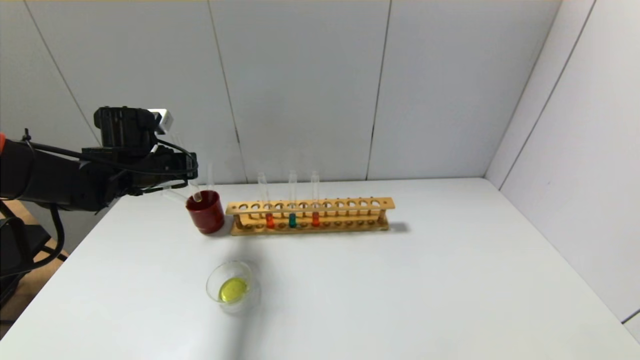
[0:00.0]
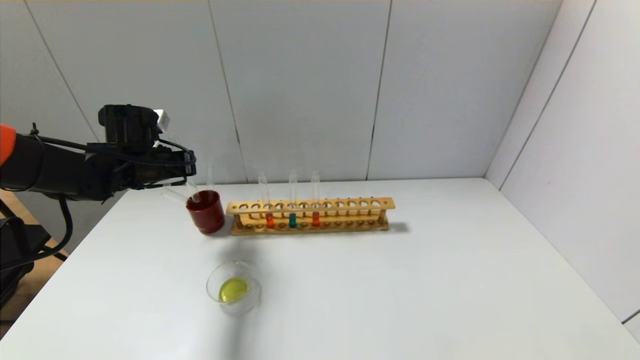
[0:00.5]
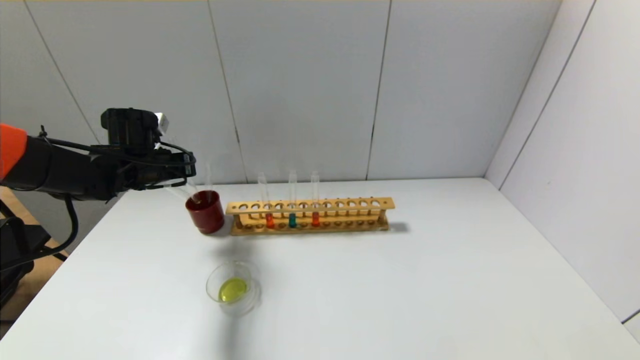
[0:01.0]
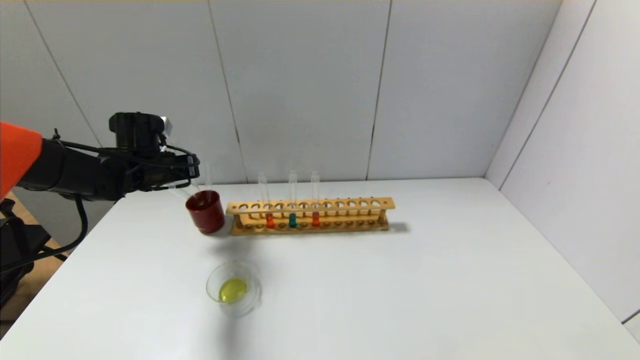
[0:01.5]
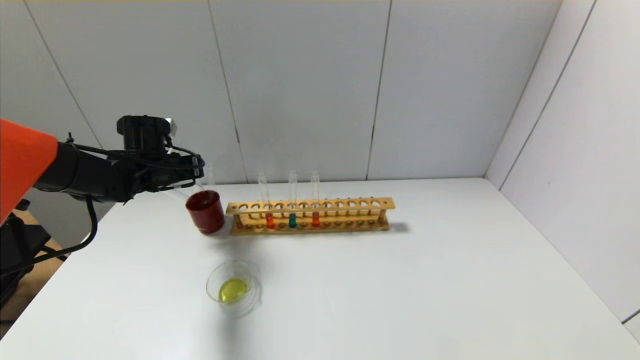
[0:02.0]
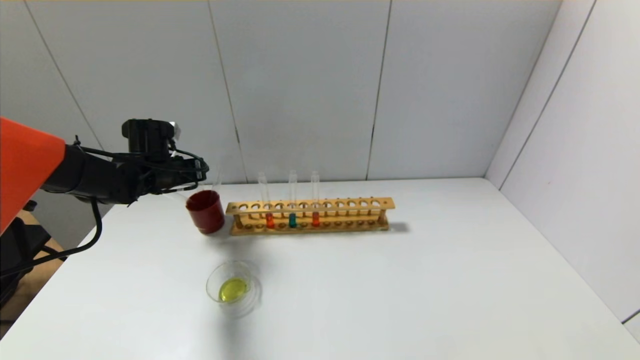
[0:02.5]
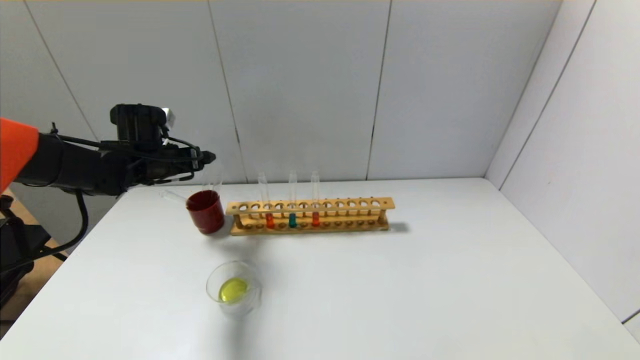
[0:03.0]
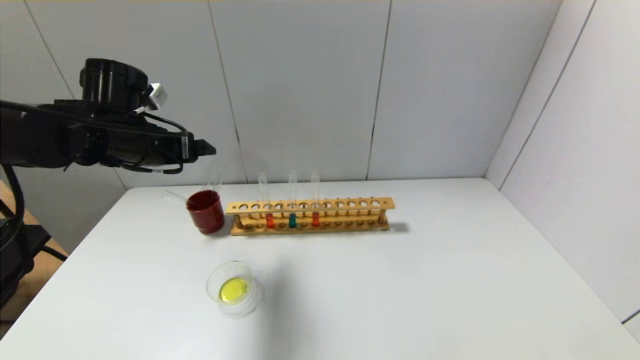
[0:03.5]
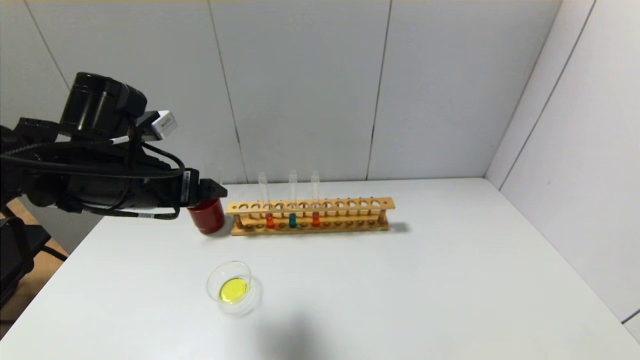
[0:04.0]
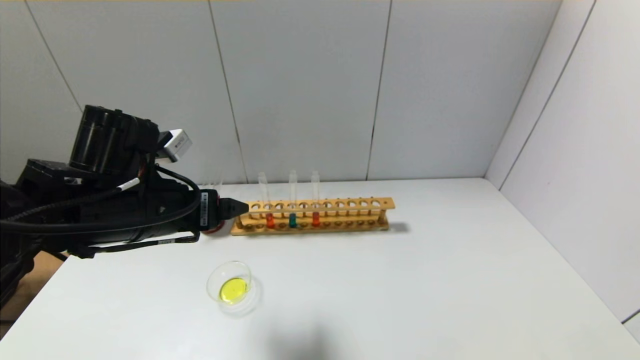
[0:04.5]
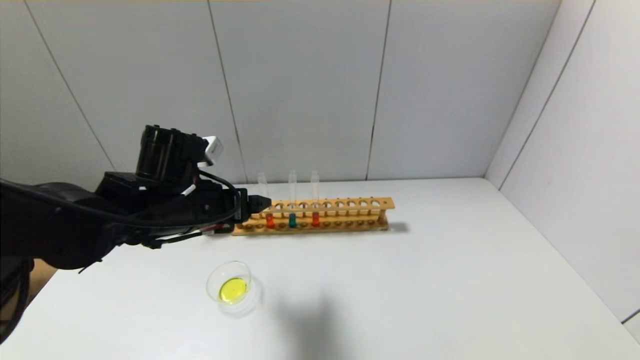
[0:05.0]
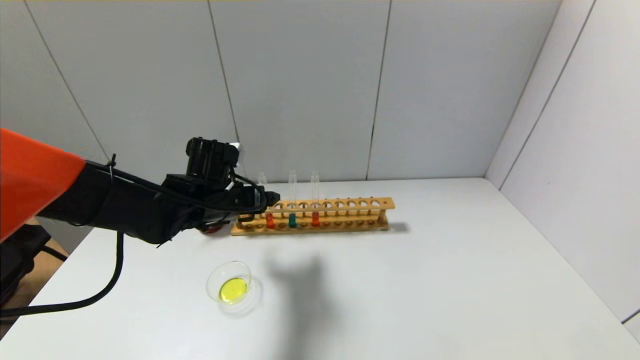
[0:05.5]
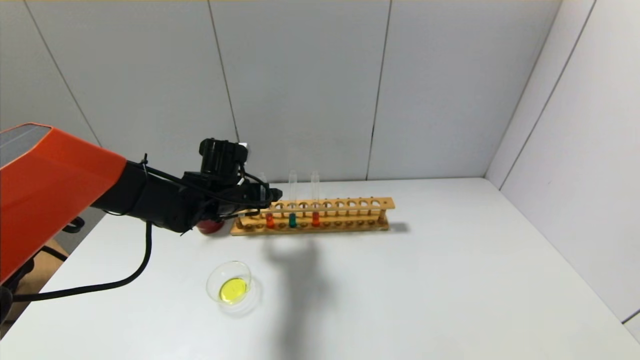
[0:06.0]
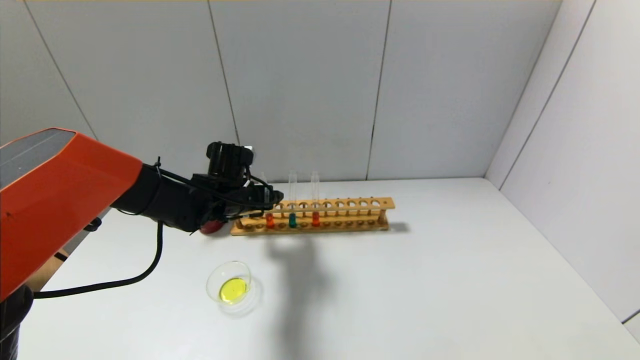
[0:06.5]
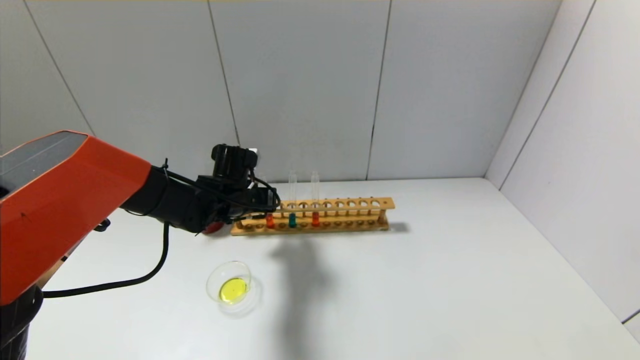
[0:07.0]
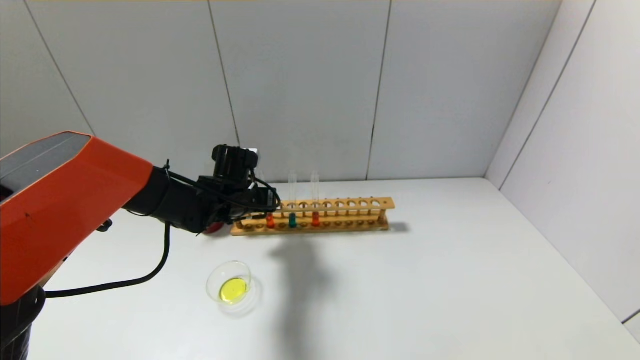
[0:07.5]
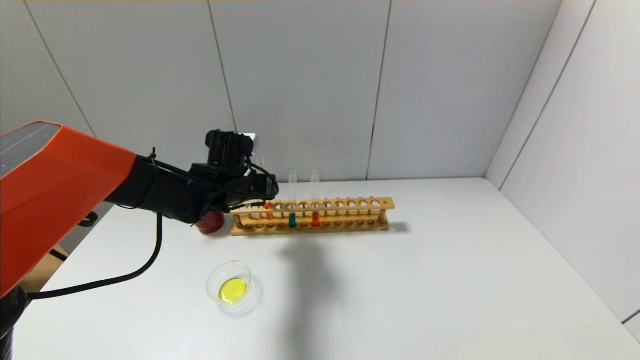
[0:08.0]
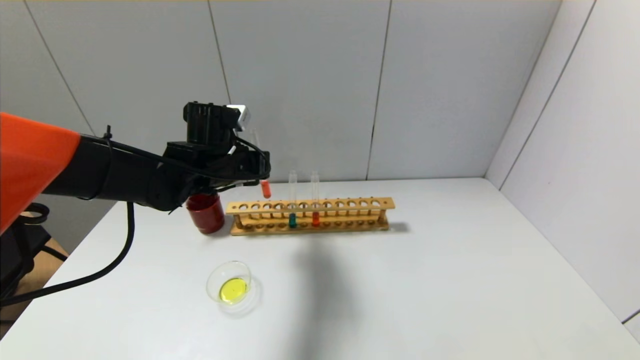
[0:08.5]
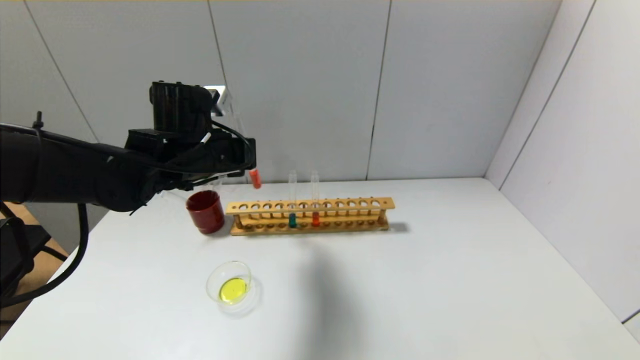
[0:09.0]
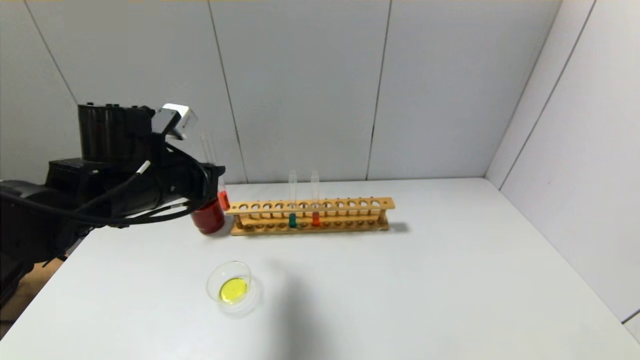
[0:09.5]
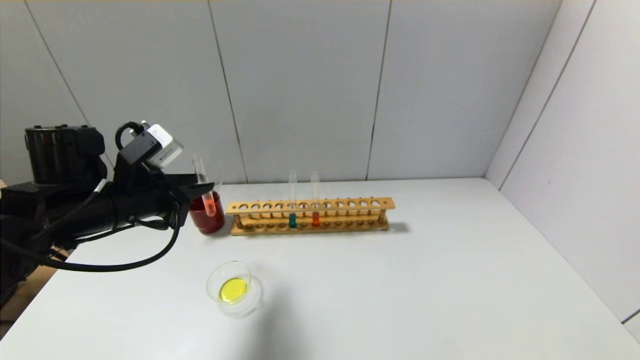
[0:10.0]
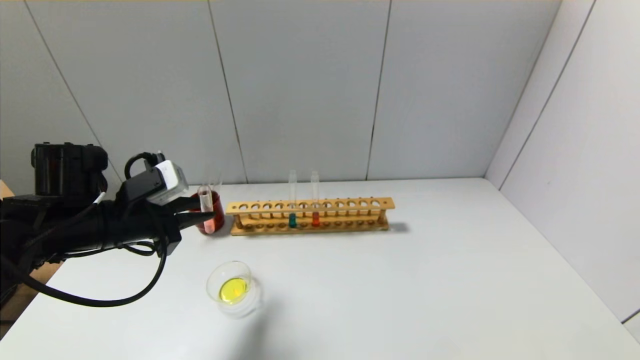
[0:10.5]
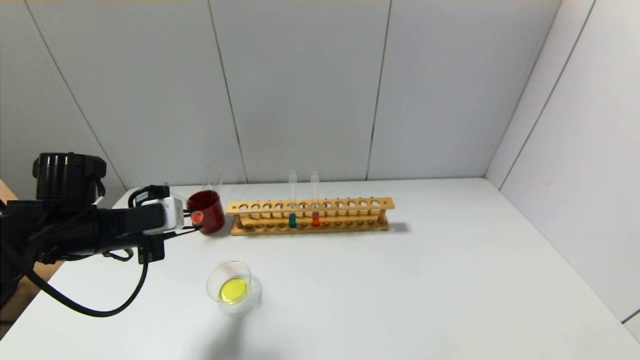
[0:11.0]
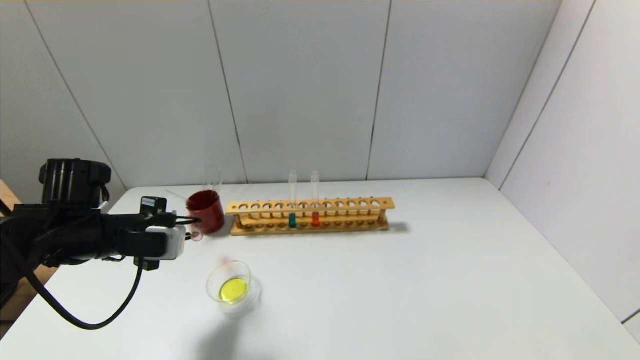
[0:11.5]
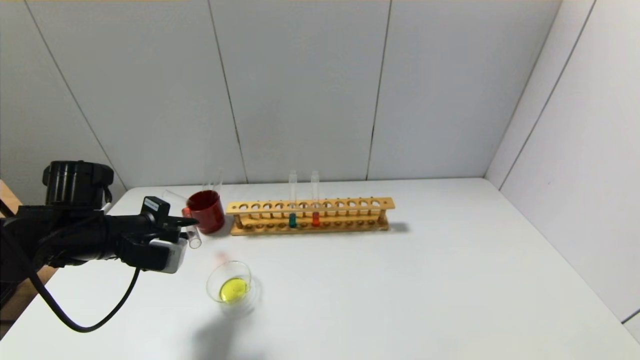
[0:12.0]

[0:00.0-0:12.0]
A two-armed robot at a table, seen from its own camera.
Step, 0:00.0 to 0:02.5: Place the test tube into the brown cup with the left gripper.
Step, 0:03.0 to 0:07.0: Grasp the red reagent with the left gripper.
0:00.0 to 0:02.0: The left gripper shifts by approximately 5 cm.
0:02.0 to 0:04.0: The left gripper travels backward, upward and to the right by roughly 20 cm, and opens.
0:04.0 to 0:06.0: The left gripper travels forward, downward and to the right by approximately 20 cm.
0:06.0 to 0:08.0: The left gripper closes.
0:08.0 to 0:10.0: The left gripper travels backward and to the left by roughly 15 cm.
0:10.0 to 0:12.0: The left gripper goes some 5 cm downward.

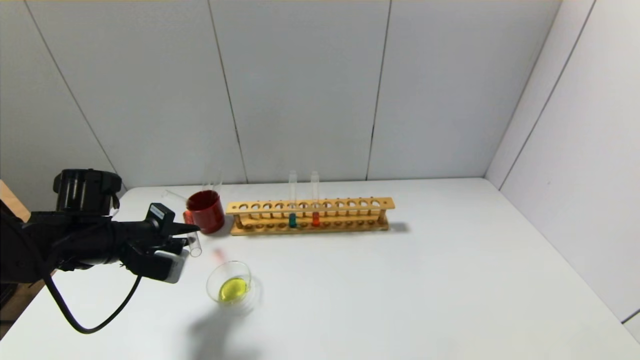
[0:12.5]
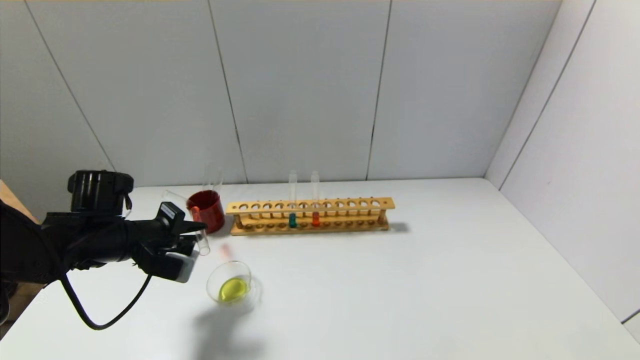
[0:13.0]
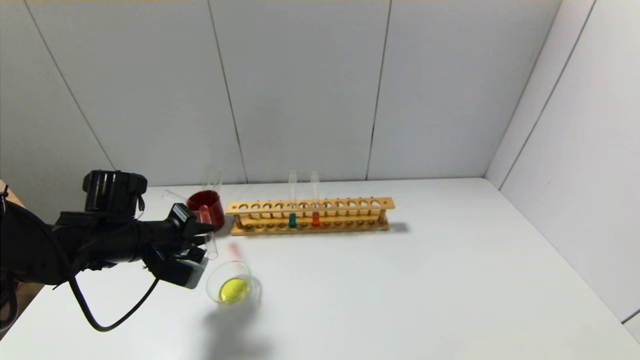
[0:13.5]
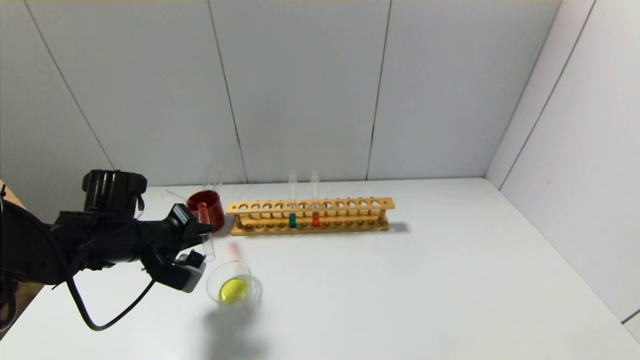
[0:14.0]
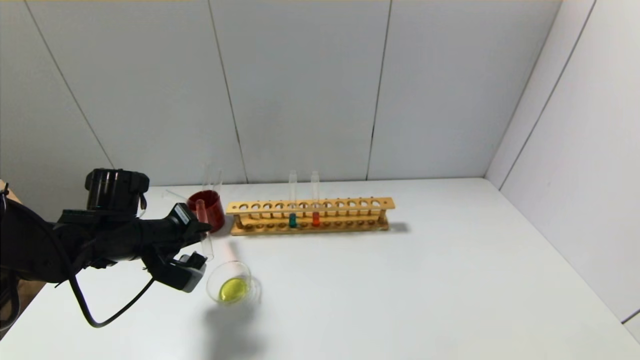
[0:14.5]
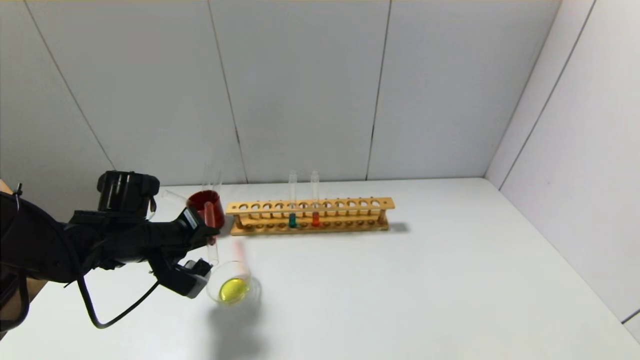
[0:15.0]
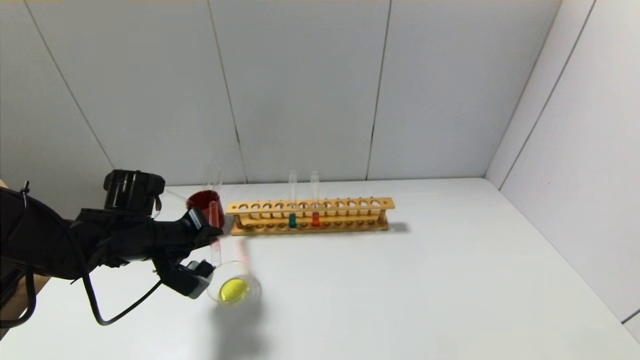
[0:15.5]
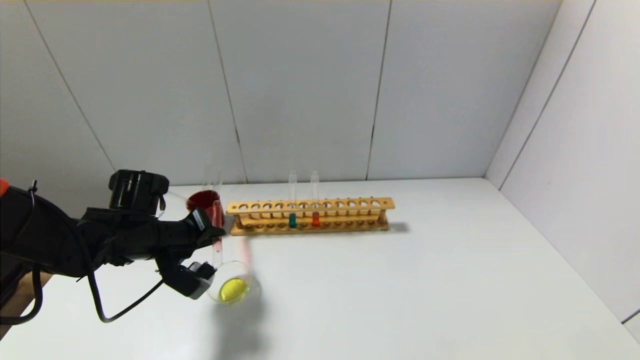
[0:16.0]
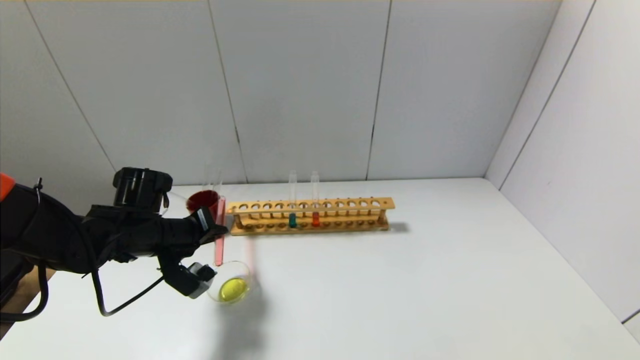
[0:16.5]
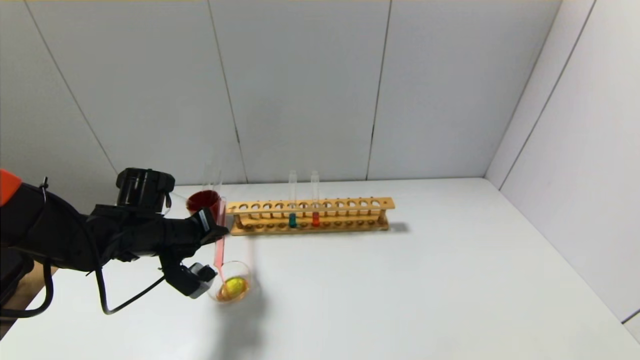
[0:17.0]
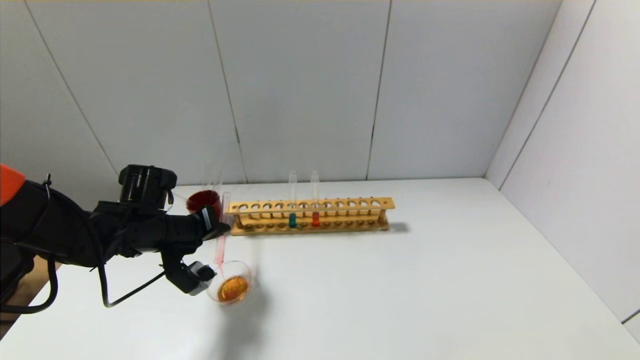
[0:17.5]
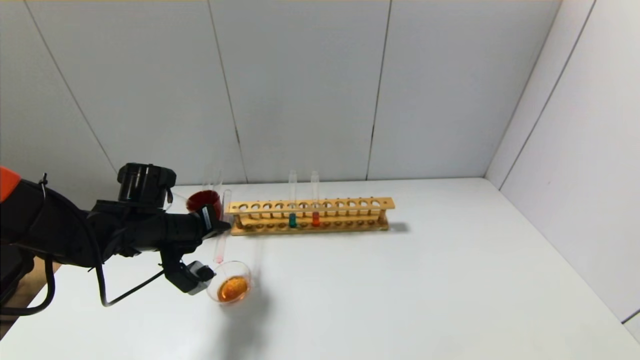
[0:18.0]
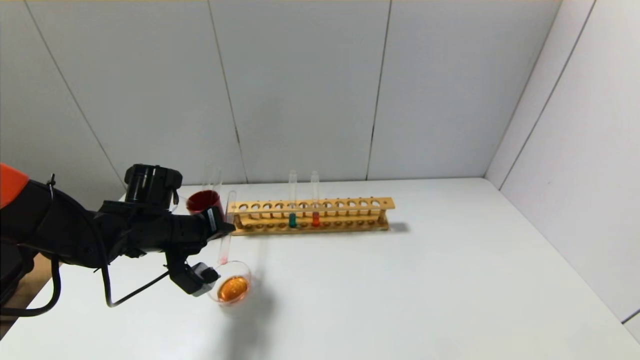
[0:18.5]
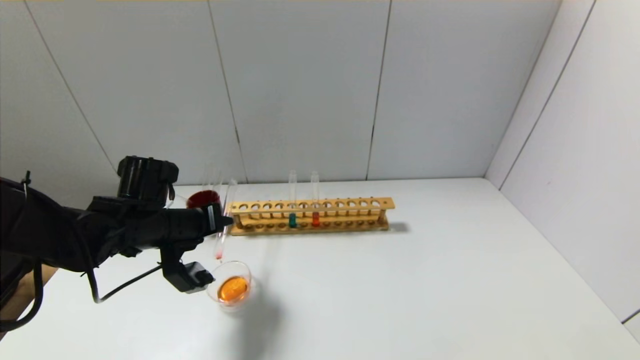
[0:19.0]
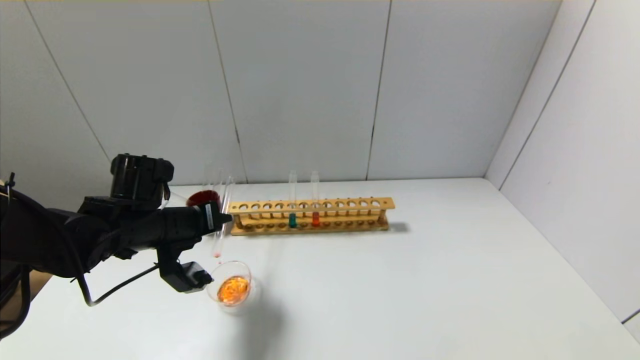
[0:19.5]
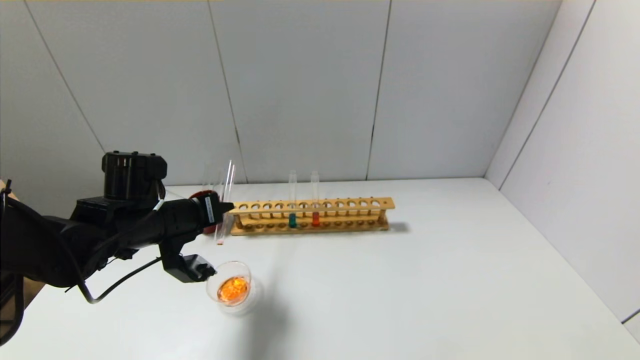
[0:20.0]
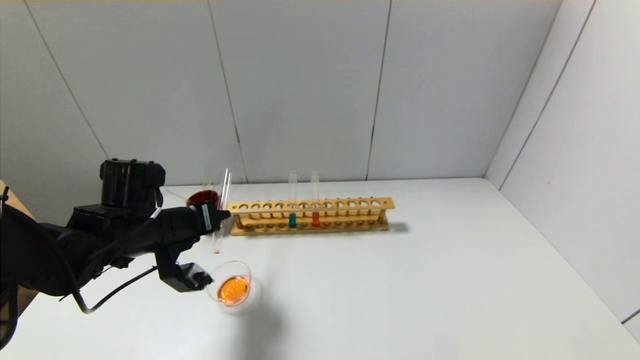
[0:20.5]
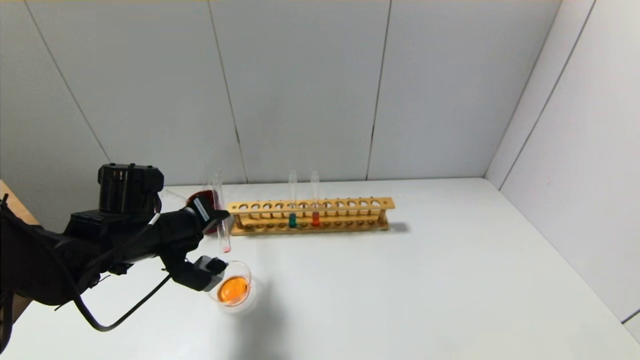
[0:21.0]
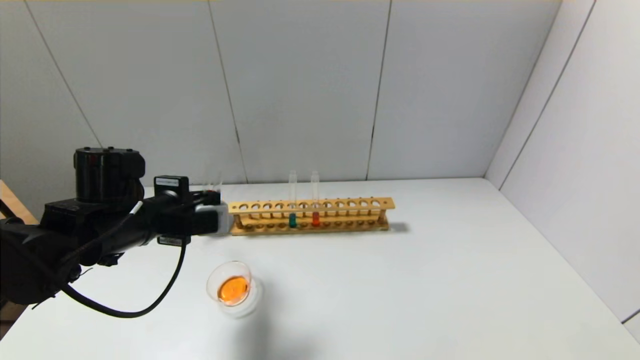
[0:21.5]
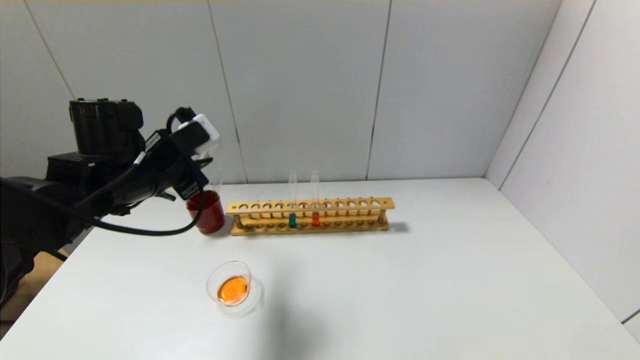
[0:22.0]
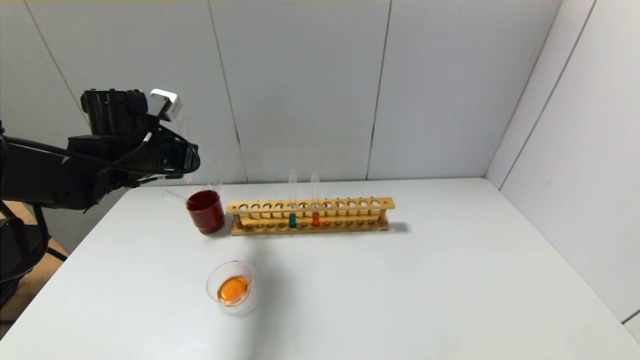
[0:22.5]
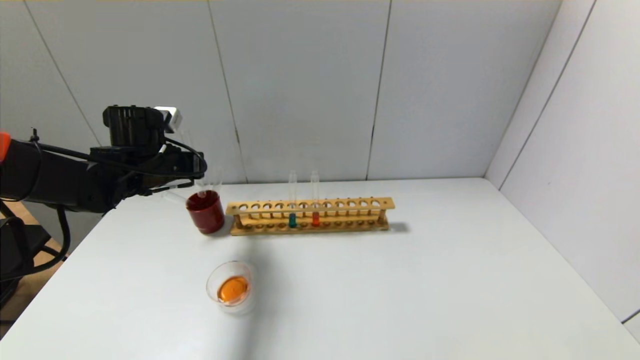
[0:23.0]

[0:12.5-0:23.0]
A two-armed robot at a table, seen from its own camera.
Step, 0:12.5 to 0:21.0: Pour the red reagent into the graduated cylinder with the left gripper.
0:12.5 to 0:14.5: The grippers move only a little.
0:14.5 to 0:16.5: There are only small adjustments of the grippers.
0:16.5 to 0:19.0: The grippers stay close to where they were, moving slightly.
0:21.0 to 0:23.0: The left gripper travels forward by roughly 10 cm.
